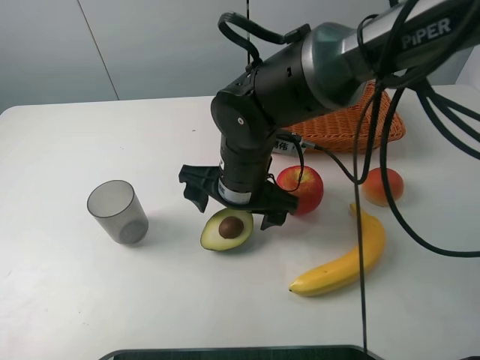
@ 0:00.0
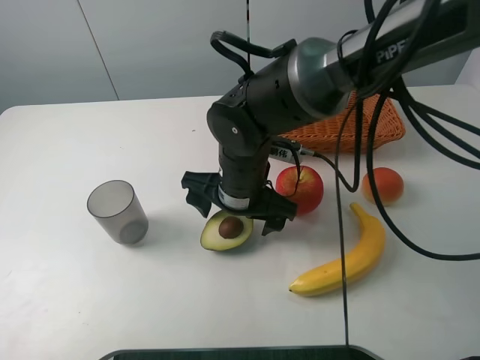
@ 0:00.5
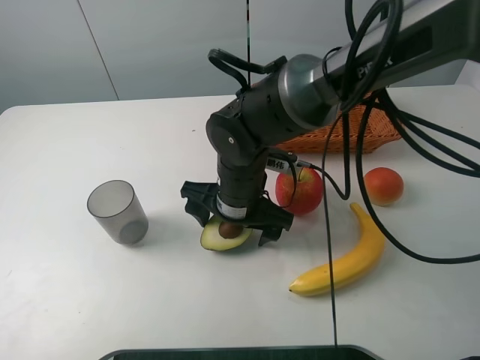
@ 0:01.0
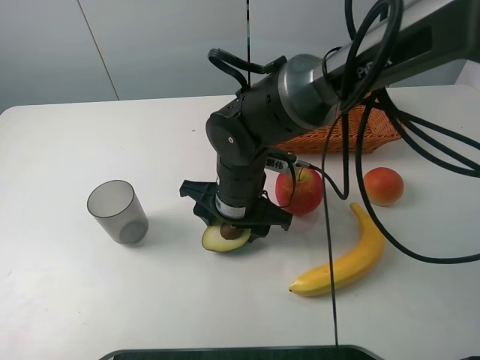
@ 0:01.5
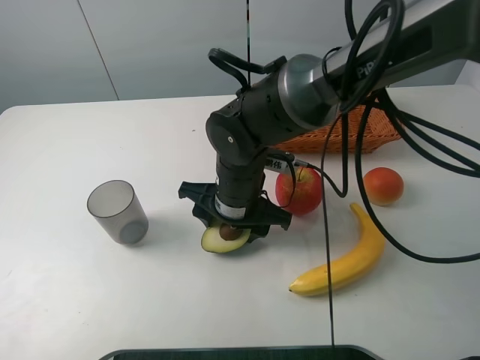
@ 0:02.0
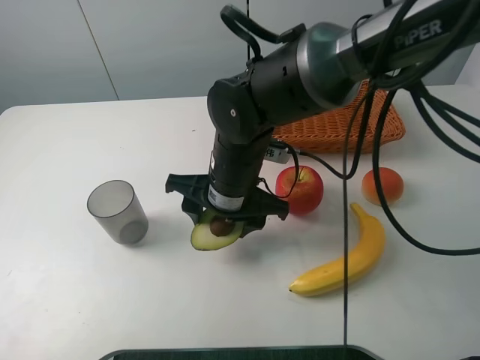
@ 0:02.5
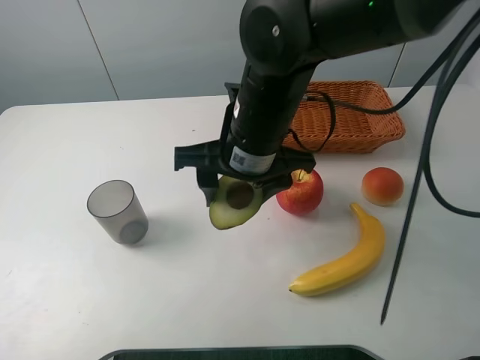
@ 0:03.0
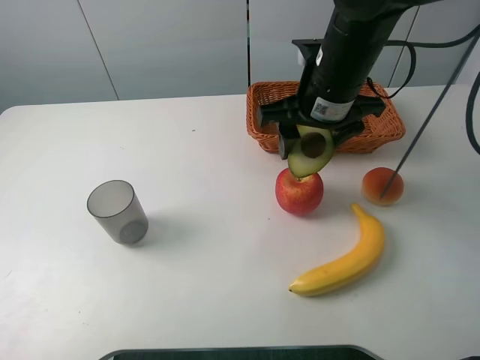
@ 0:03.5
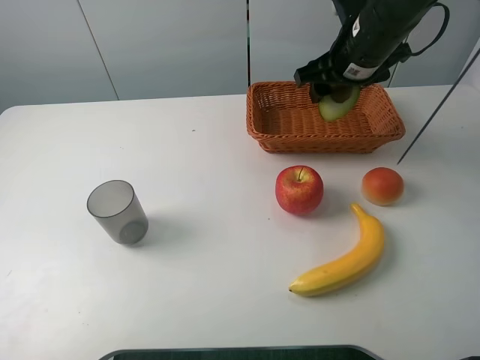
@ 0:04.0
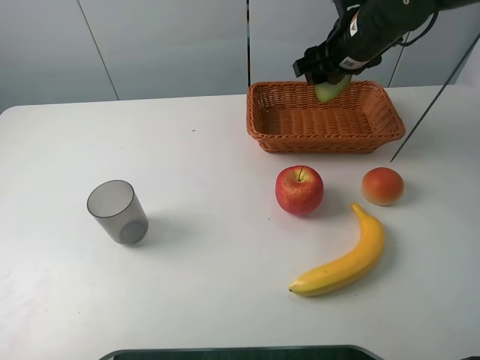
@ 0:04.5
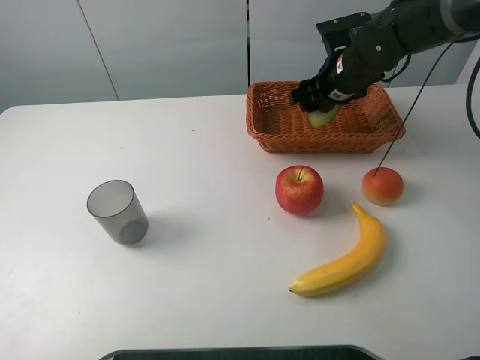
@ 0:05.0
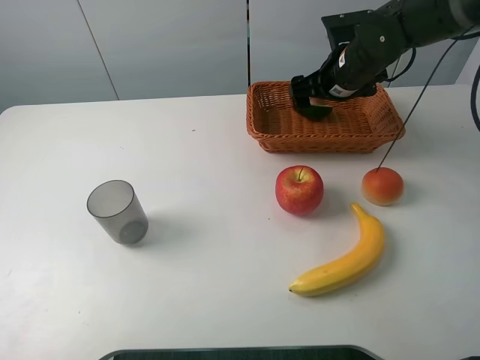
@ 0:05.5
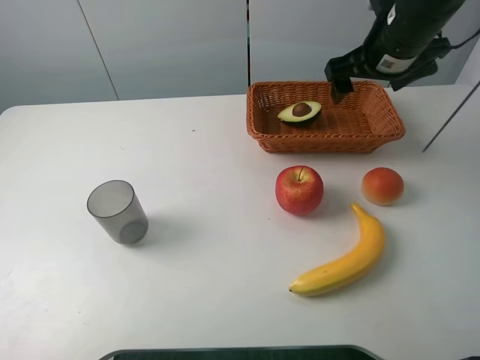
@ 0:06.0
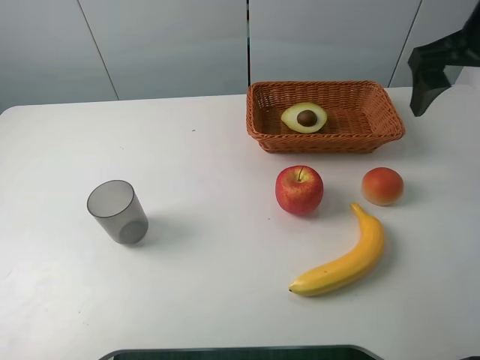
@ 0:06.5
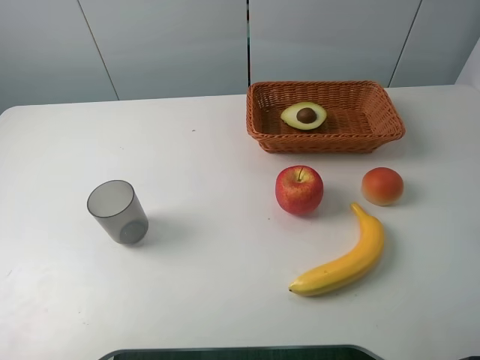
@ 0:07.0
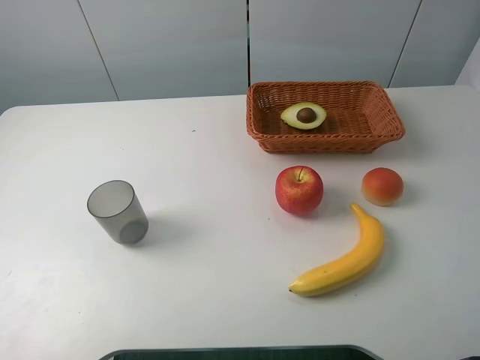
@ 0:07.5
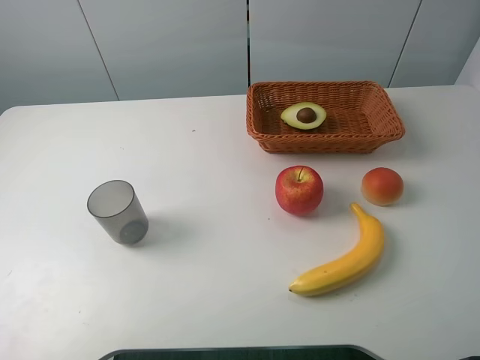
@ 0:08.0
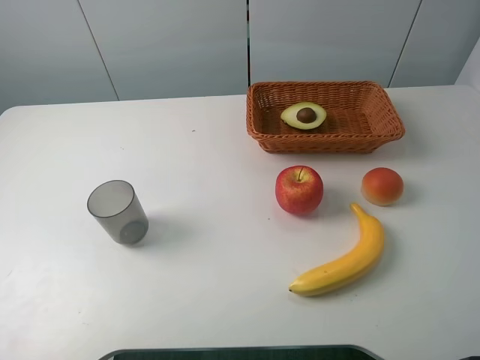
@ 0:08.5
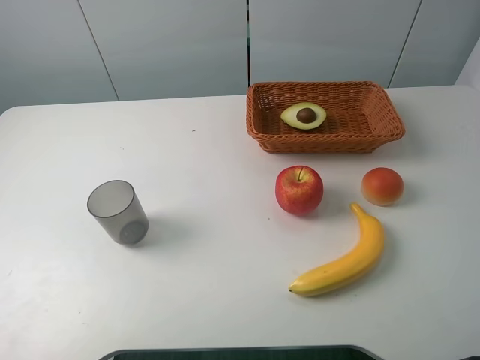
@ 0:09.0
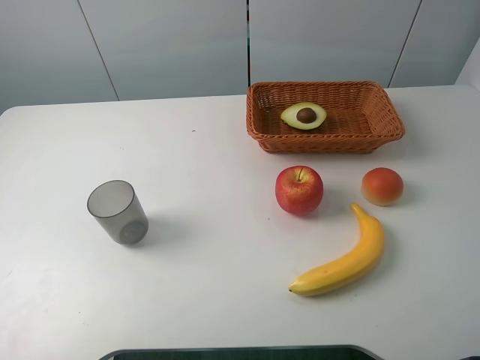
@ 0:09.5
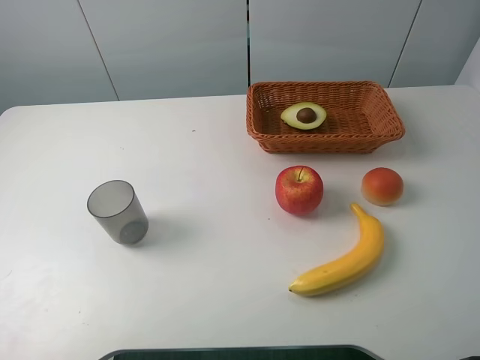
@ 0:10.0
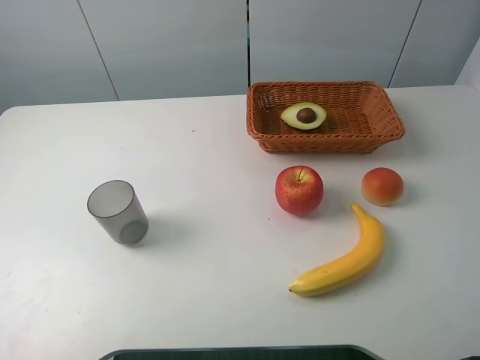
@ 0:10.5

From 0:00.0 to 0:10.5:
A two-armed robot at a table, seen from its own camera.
Task of the whole recording: randomly pick up an item from the table and put it in the basket.
Step, from 0:01.5 to 0:05.5: Place the avocado into the basket with the right gripper.
From 0:00.0 to 0:02.0: The right gripper closes up.
From 0:02.0 to 0:04.0: The right gripper goes some 25 cm to the right, upward and forward.
From 0:04.0 to 0:06.5: The right gripper heads to the right, backward and upward, covering approximately 15 cm, and opens its fingers.
From 0:06.5 to 0:08.5: The right gripper shifts roughly 25 cm backward.
From 0:08.5 to 0:10.5: The two grippers keep their place.
